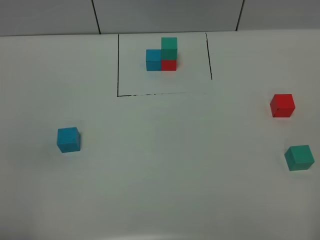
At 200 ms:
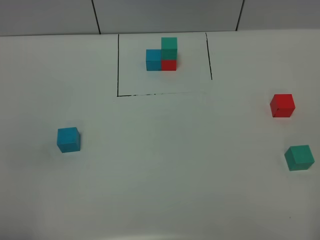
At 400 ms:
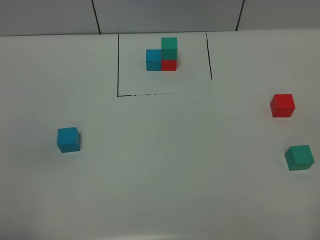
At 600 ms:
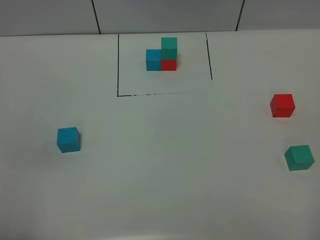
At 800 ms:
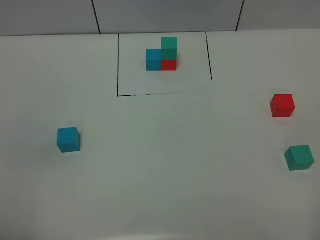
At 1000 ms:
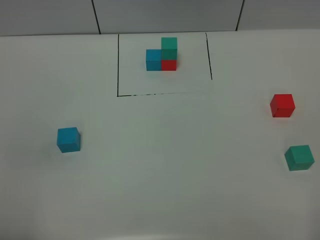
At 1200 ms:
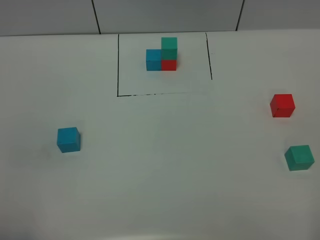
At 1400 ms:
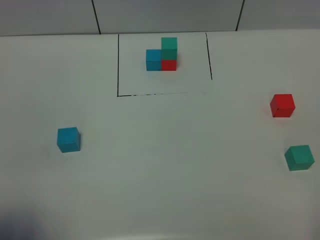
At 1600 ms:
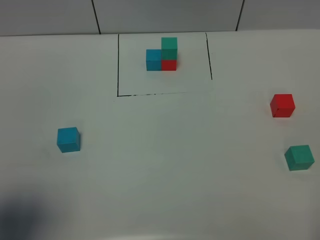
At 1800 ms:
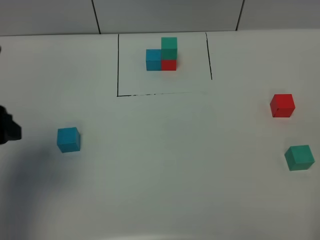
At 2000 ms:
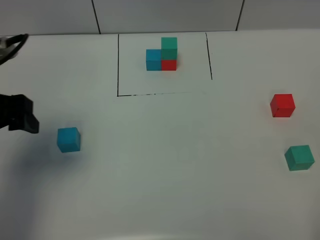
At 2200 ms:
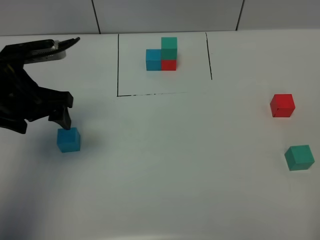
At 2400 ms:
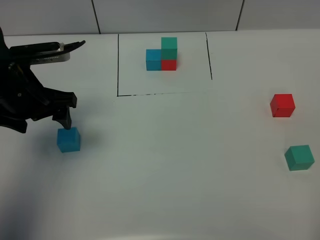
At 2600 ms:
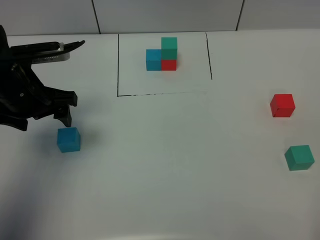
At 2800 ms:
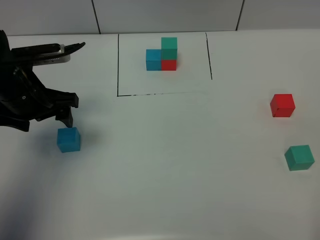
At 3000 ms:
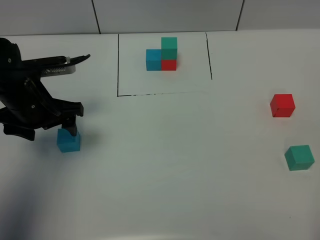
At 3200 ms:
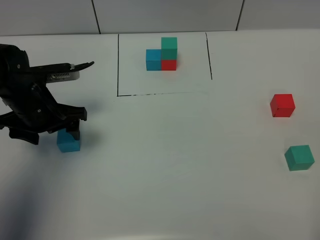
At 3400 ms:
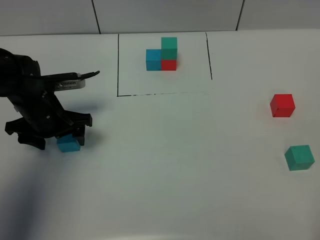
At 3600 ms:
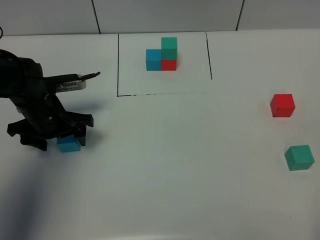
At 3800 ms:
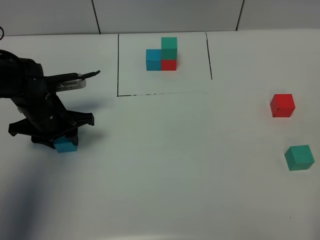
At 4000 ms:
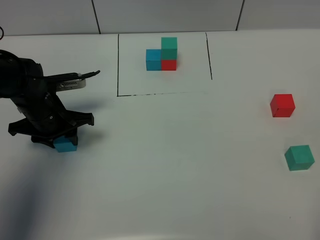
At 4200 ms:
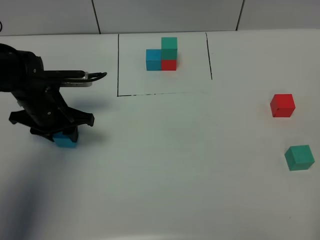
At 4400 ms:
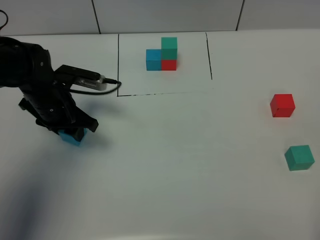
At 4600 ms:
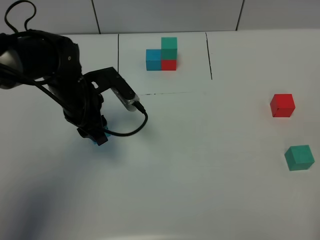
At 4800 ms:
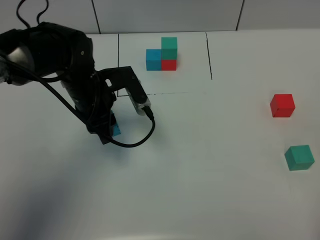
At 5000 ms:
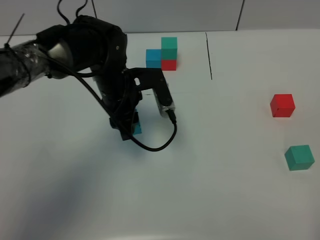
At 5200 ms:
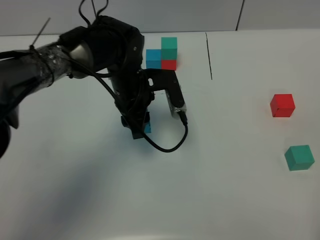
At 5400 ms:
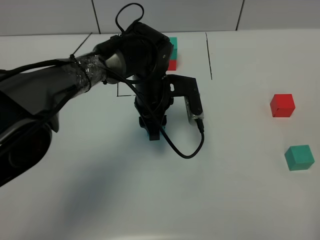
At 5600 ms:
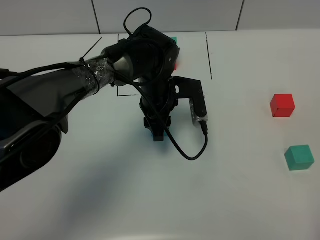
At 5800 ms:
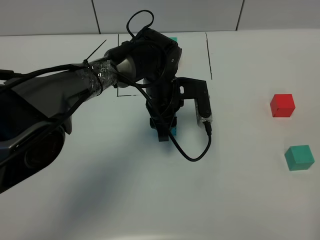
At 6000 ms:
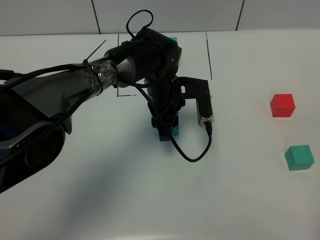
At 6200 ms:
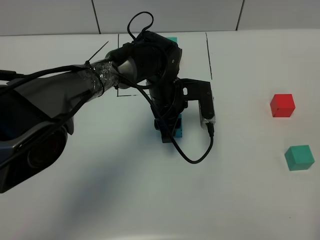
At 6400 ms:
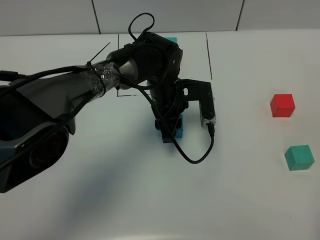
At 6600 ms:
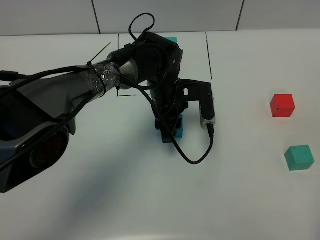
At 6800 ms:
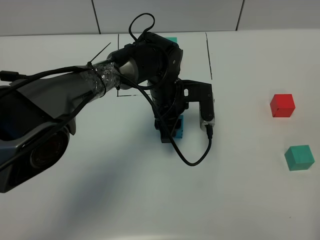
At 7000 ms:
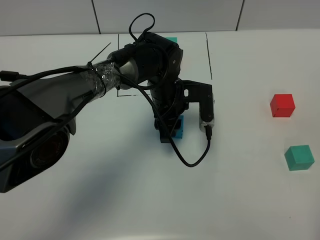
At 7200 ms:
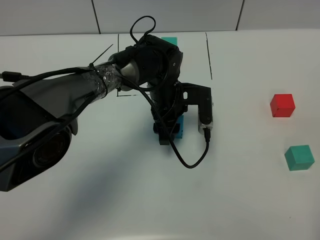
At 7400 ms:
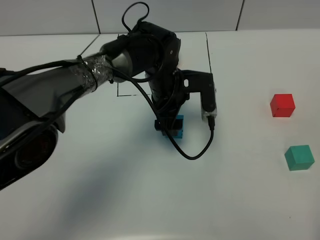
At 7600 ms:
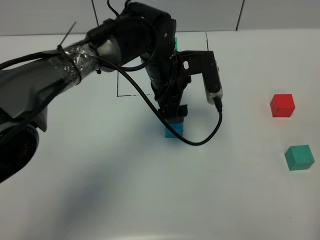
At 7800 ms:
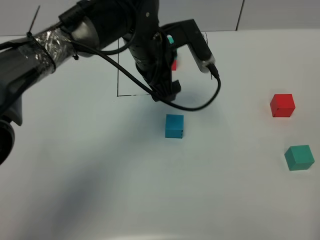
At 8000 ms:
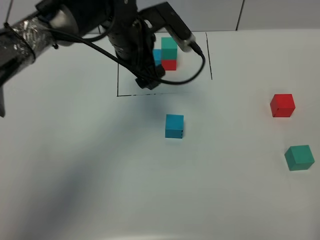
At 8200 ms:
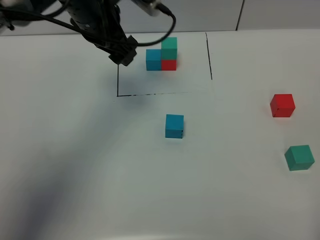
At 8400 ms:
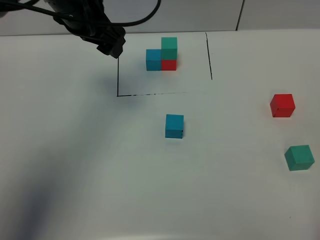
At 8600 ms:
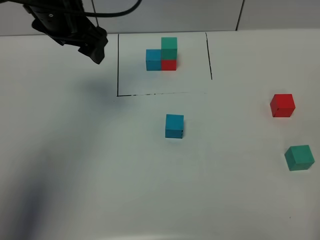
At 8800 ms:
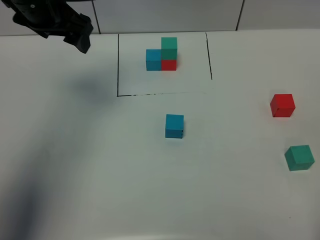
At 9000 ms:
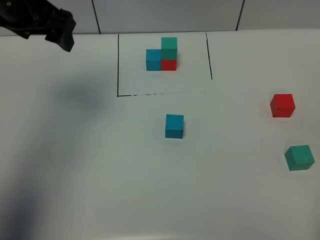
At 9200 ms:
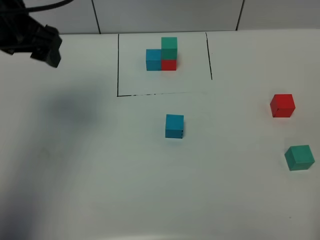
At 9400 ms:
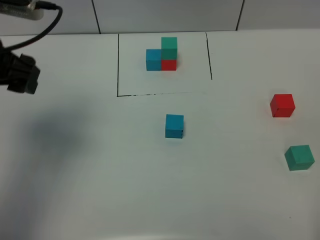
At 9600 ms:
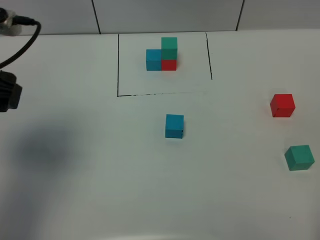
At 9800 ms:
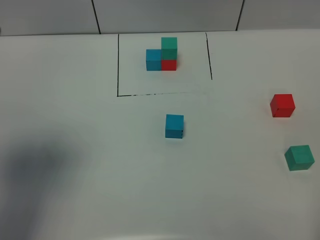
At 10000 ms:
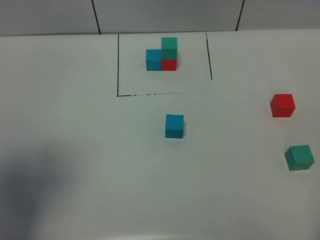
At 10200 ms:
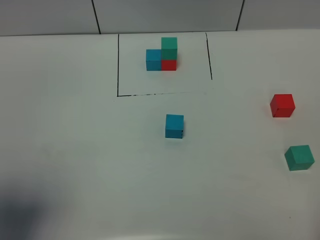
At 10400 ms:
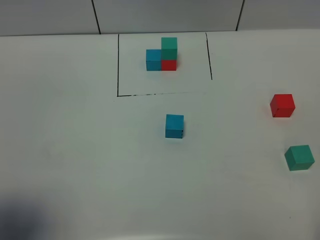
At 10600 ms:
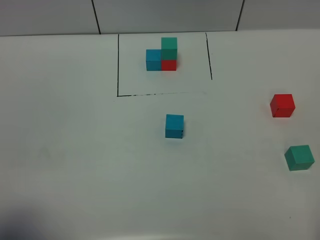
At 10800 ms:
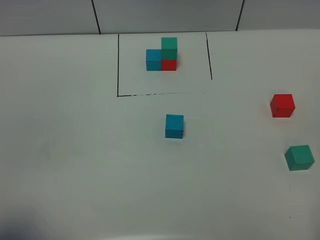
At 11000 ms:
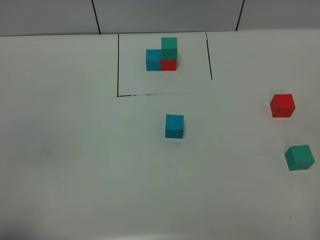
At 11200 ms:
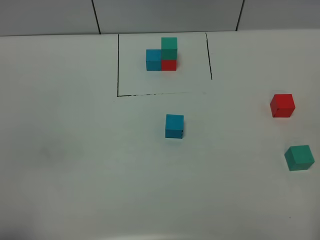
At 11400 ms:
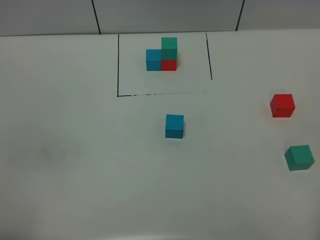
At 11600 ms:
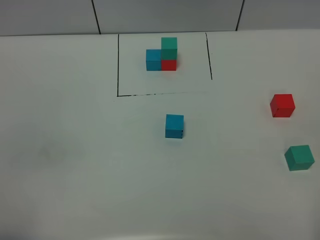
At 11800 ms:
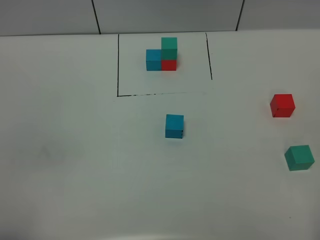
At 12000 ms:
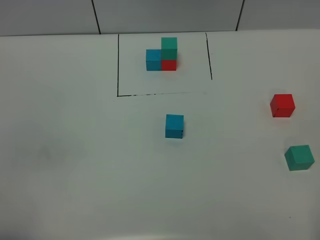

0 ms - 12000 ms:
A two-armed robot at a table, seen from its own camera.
Task of the whole recording: According to the building block template in front, assemble the scattered blocks together.
Step, 0 ms - 7400 ms: Put the blue build block in the center of the table.
0 ms - 1600 ms: The left gripper travels forward by some 10 cm.
1600 ms - 3000 ms: The left gripper heads forward and downward, covering some 25 cm.
3000 ms - 4400 ms: The left gripper shifts by some 5 cm, and closes.
4400 ms - 6000 ms: The left gripper goes some 20 cm to the right.
6000 ms - 7600 ms: The left gripper travels upward by roughly 5 cm, and opens.
7600 ms - 9000 ms: The left gripper shifts some 25 cm to the left and upward.
9000 ms - 10400 ms: The left gripper shifts roughly 30 cm backward.
10400 ms - 12000 ms: The left gripper goes some 10 cm backward and downward.

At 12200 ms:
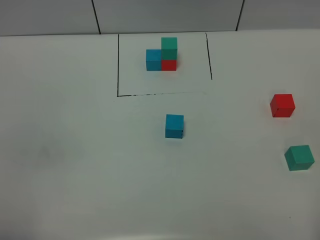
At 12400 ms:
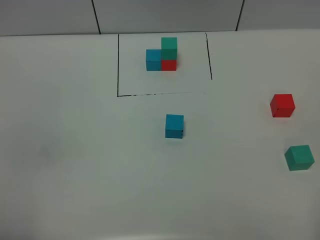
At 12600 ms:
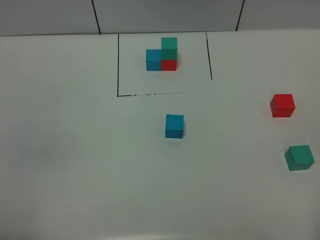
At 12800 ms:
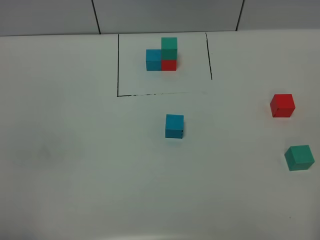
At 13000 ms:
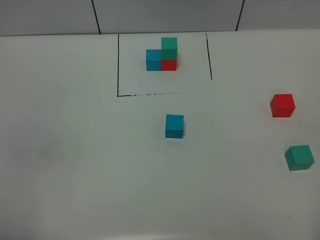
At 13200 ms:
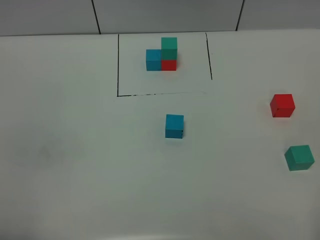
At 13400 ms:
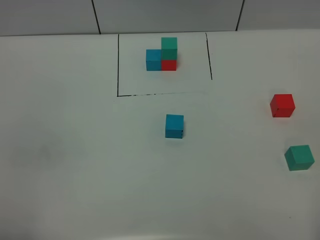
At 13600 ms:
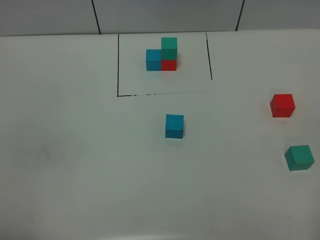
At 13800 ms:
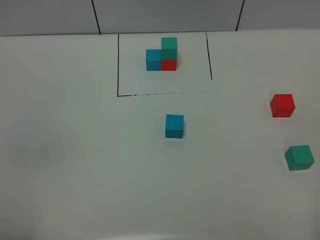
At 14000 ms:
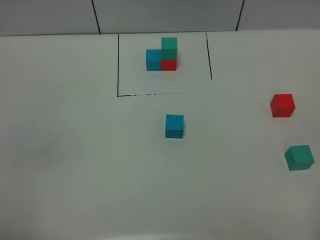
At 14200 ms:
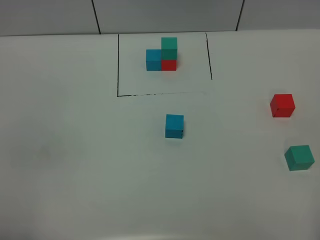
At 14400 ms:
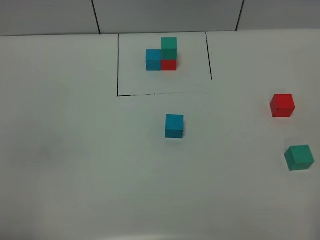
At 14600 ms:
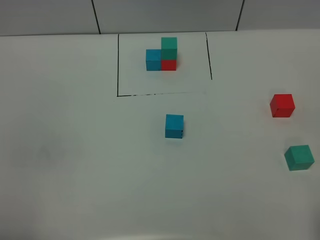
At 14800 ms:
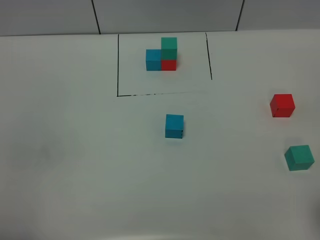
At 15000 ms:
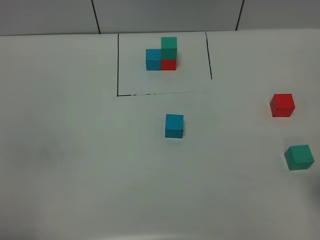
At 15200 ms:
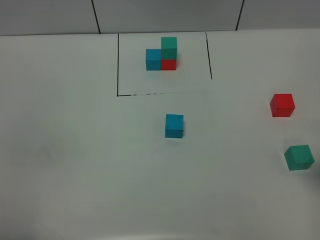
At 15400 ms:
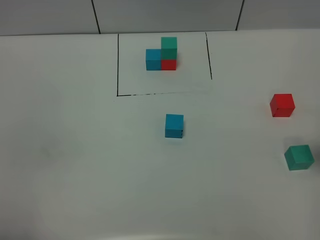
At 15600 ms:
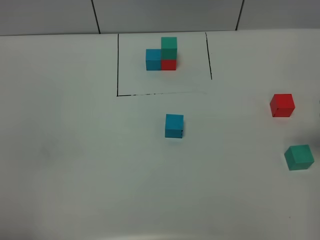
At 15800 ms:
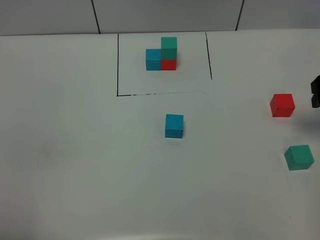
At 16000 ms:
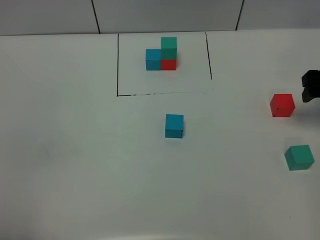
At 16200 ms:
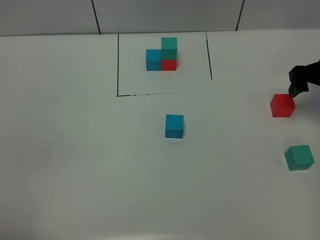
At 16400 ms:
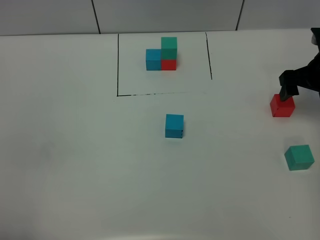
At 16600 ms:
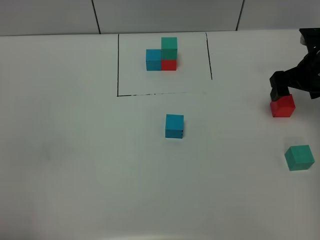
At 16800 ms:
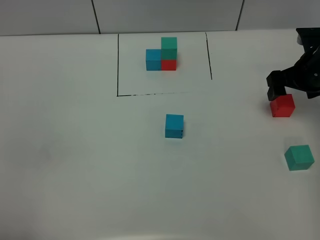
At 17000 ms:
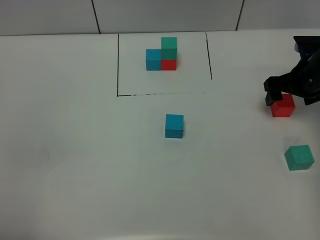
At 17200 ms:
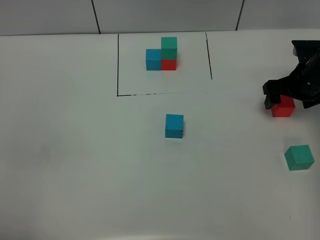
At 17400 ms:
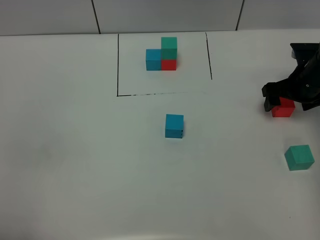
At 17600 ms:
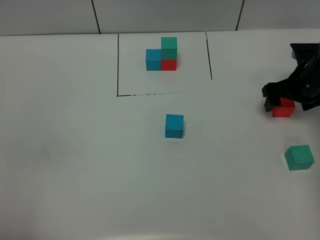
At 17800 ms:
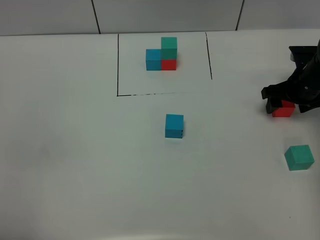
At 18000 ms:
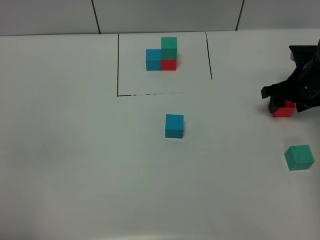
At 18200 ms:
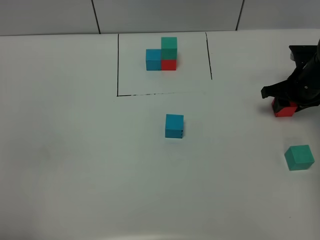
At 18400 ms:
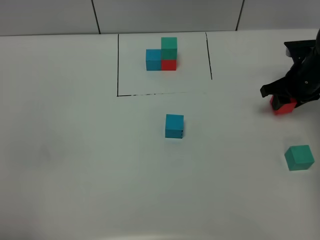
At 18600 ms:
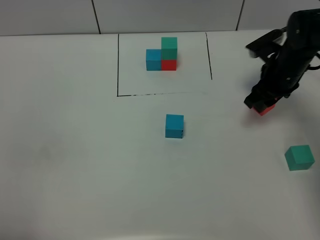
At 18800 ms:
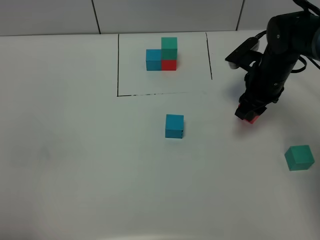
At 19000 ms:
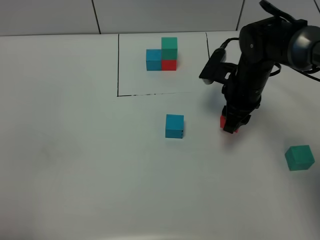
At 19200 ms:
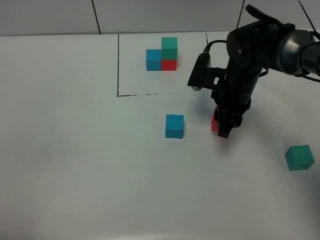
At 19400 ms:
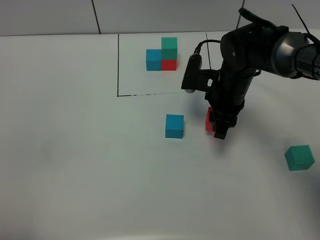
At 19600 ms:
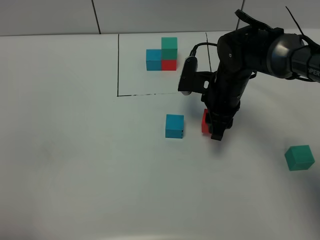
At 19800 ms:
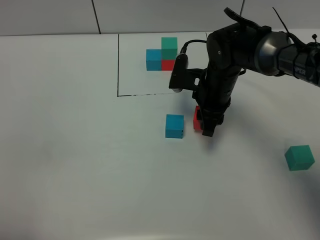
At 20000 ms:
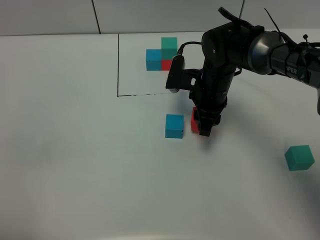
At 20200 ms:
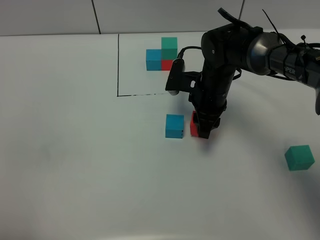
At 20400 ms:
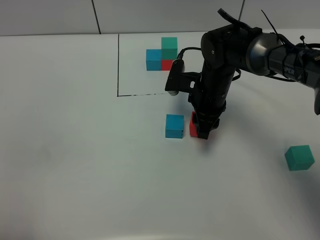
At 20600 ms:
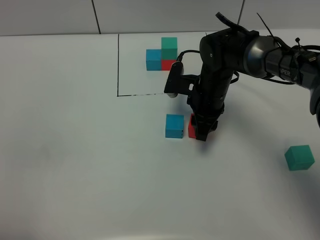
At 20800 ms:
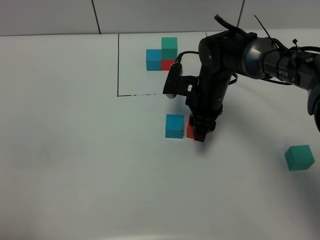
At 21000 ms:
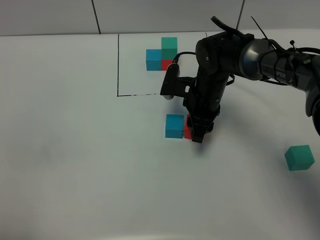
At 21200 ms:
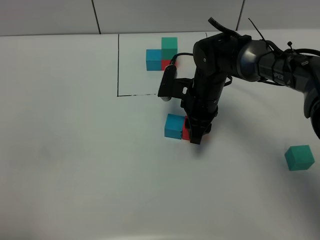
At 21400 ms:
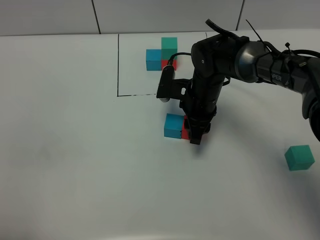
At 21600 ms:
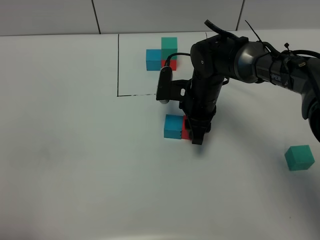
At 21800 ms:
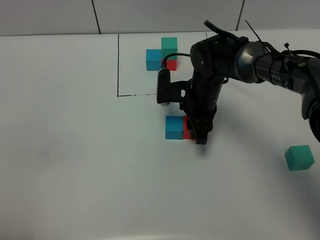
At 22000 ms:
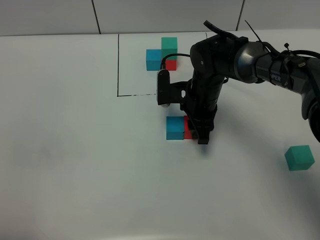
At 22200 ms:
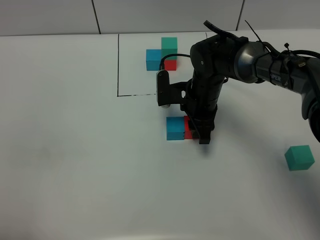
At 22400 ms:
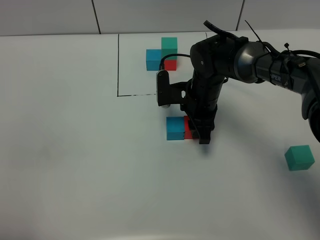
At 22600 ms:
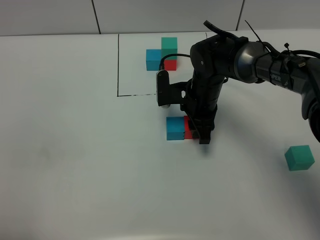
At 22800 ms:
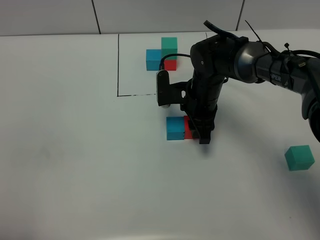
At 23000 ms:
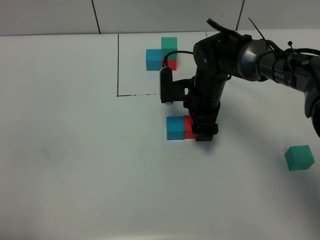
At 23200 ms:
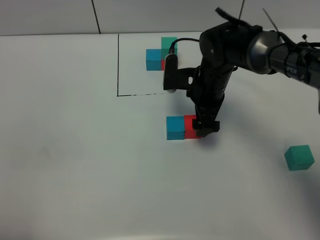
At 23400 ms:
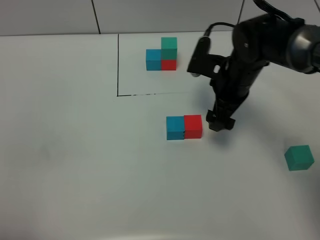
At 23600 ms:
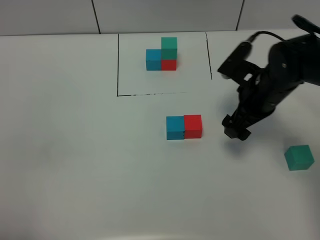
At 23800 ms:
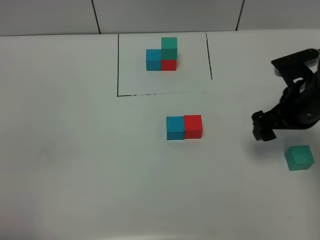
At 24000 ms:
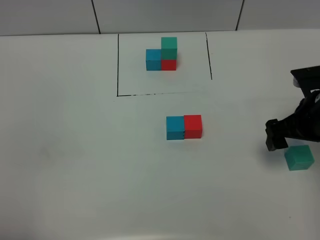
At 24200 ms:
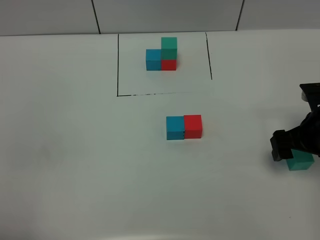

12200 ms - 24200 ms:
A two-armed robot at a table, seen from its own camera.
Task of the whole recording: According to the building block template in front, assemble the scattered blocks together.
Step, 12200 ms - 23200 ms: Put the red build block on the right of the blue build block.
12200 ms - 13800 ms: The two grippers keep their place.
15200 ms - 16600 ms: The right gripper shifts approximately 20 cm forward and downward.
16600 ms - 18200 ms: The right gripper closes up.
18200 ms - 19800 ms: The right gripper heads to the left, covering some 20 cm.
19800 ms - 22600 ms: There are only small adjustments of the grippers.
22600 ms - 24200 ms: The right gripper goes some 25 cm to the right and backward, and opens.
